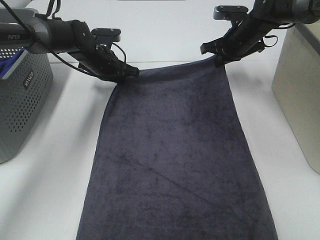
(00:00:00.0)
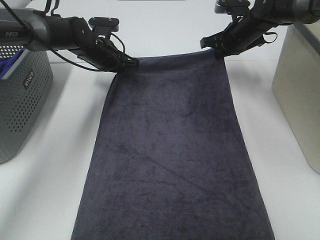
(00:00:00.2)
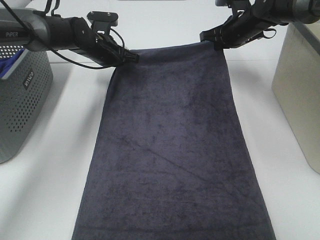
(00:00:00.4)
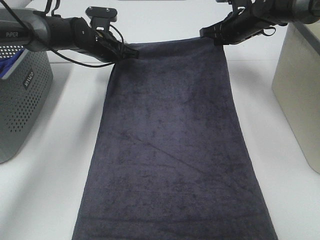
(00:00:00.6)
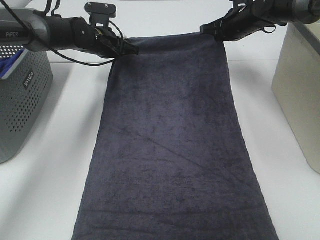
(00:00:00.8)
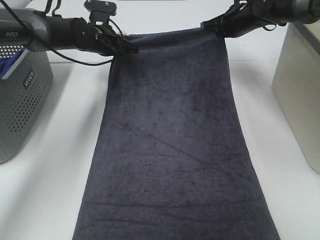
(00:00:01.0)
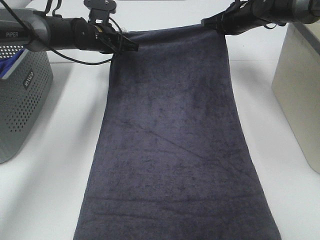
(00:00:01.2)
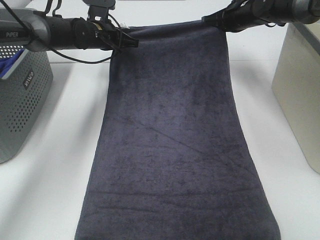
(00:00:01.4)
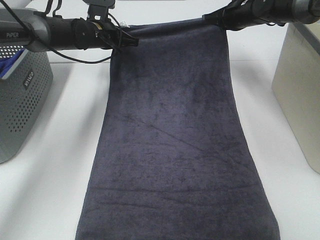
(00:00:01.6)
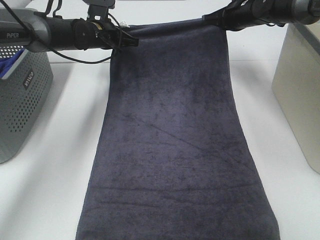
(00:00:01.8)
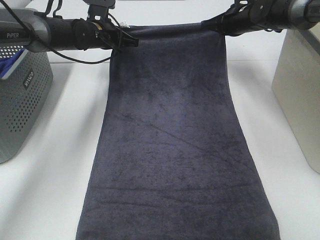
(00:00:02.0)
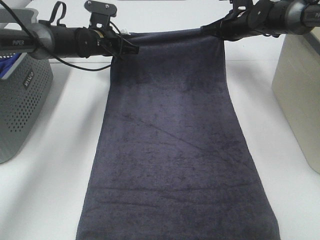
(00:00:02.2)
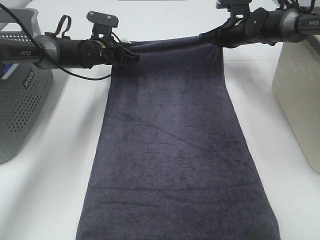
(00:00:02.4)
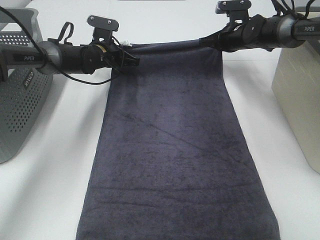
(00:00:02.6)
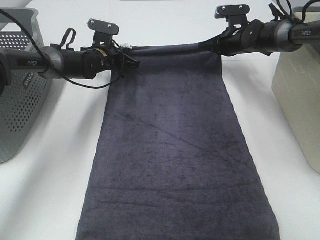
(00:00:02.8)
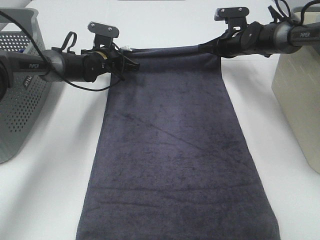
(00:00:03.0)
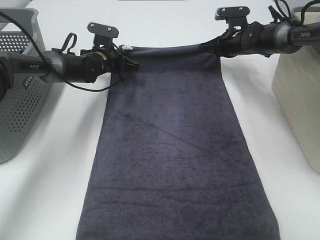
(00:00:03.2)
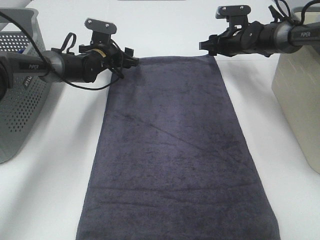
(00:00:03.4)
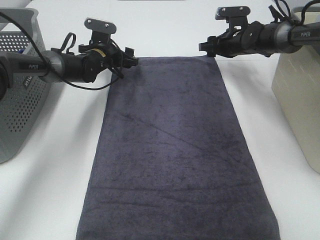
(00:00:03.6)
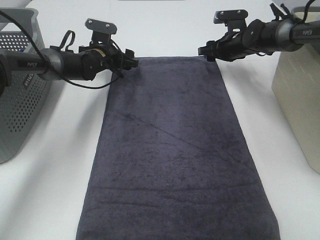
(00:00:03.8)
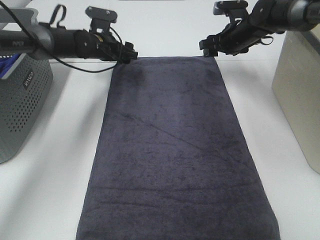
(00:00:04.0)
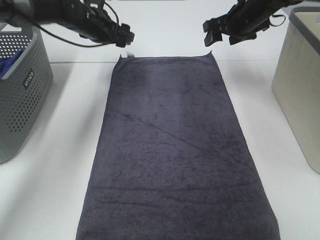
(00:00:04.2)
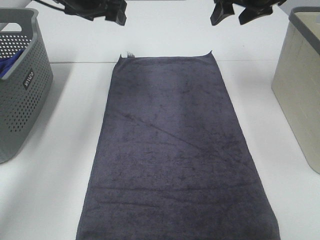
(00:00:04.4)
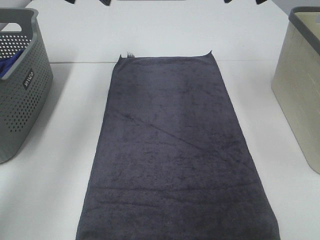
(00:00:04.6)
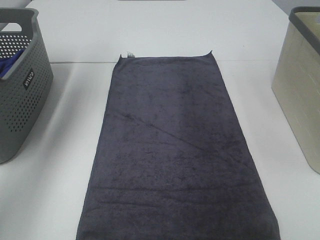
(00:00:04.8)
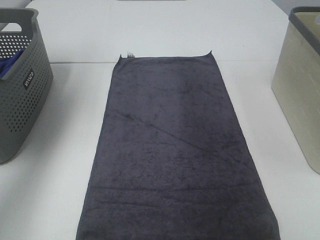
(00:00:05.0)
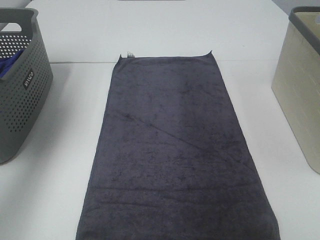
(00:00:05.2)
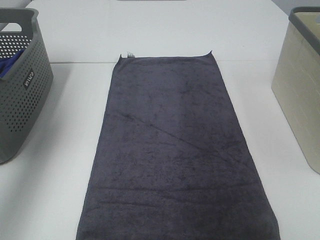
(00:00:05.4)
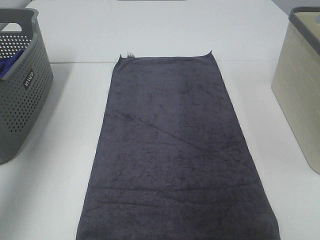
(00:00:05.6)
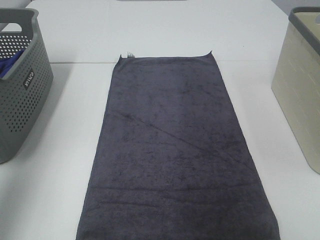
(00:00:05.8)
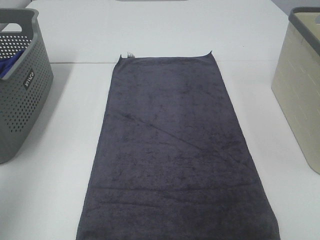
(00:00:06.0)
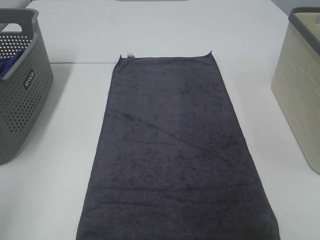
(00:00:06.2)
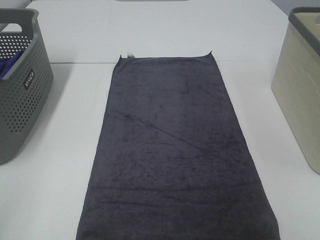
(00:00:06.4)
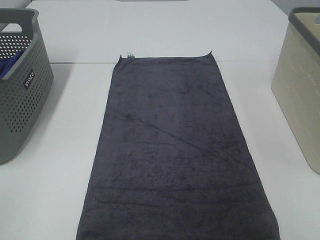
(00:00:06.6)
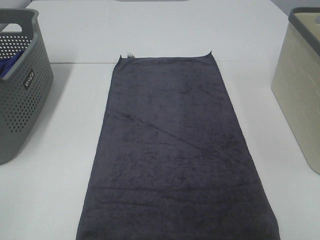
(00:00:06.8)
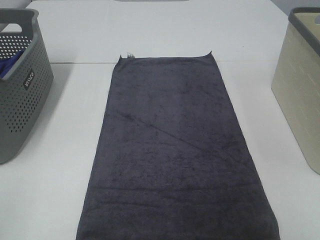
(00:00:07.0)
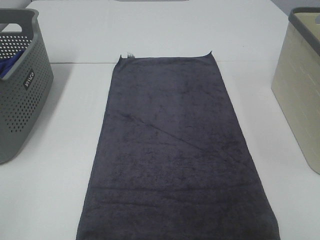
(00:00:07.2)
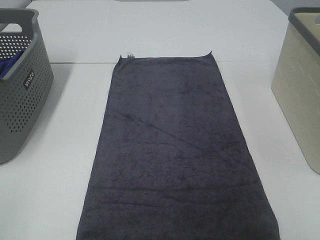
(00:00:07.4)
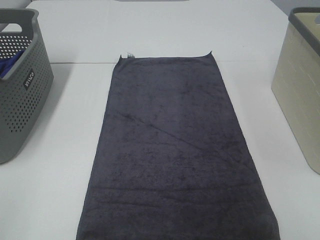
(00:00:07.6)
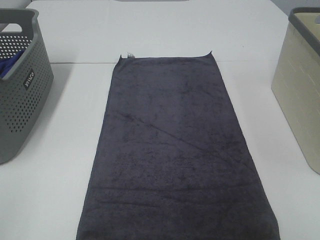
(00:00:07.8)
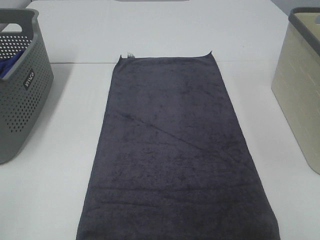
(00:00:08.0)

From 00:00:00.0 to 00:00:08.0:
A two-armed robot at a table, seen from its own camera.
Task of the whole recording: Remove the towel and place it.
From 00:00:01.6 to 00:00:03.2: The two grippers go some 5 cm downward.
From 00:00:03.2 to 00:00:04.8: The right gripper moves upward and backward, approximately 35 cm, and opens, while the left gripper shifts some 30 cm upward, and opens.
From 00:00:04.8 to 00:00:06.4: The left gripper moves backward, about 40 cm.
